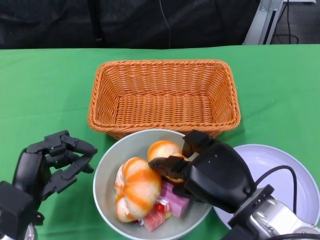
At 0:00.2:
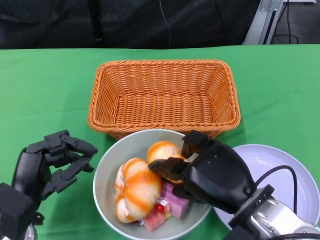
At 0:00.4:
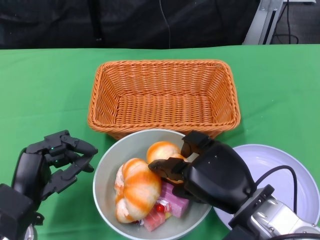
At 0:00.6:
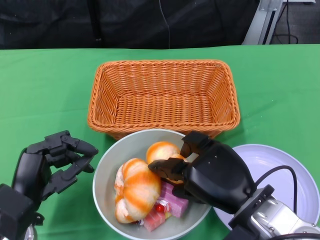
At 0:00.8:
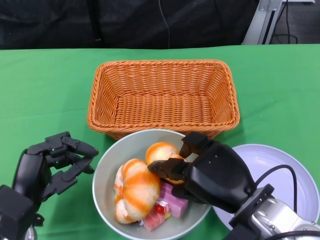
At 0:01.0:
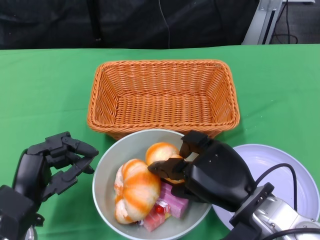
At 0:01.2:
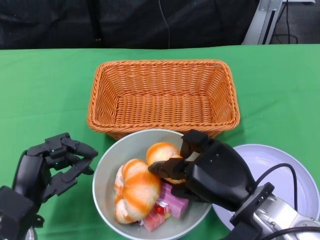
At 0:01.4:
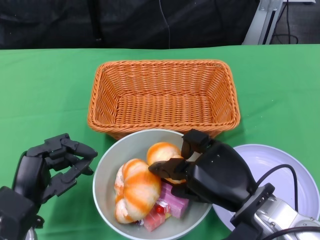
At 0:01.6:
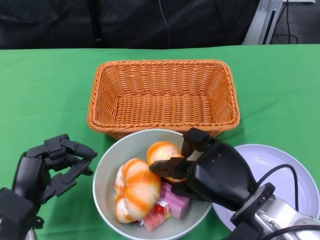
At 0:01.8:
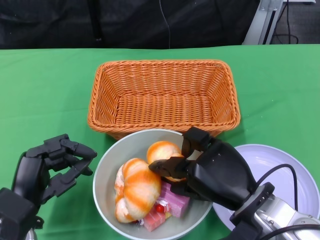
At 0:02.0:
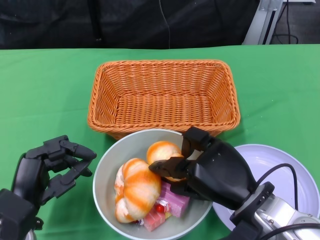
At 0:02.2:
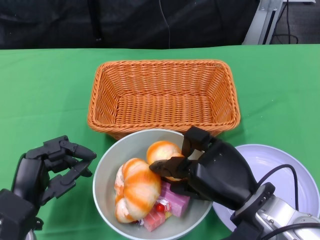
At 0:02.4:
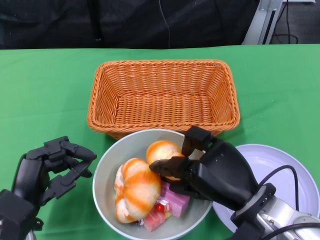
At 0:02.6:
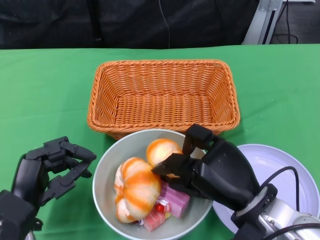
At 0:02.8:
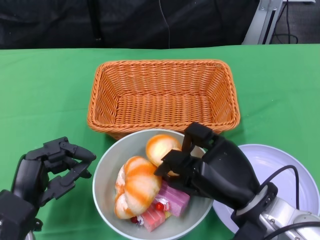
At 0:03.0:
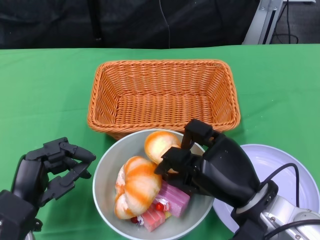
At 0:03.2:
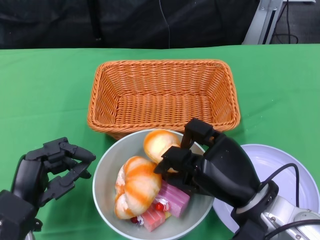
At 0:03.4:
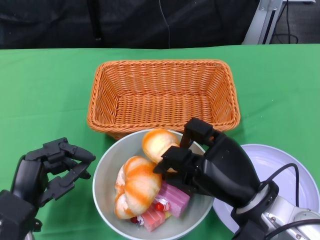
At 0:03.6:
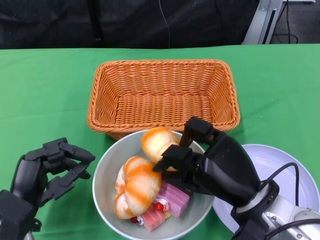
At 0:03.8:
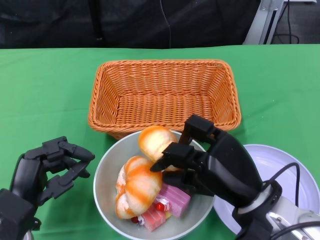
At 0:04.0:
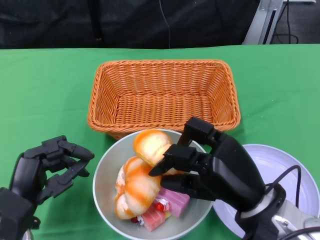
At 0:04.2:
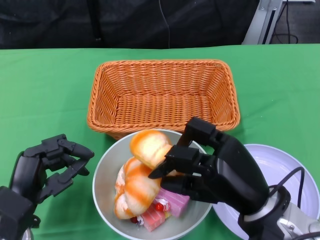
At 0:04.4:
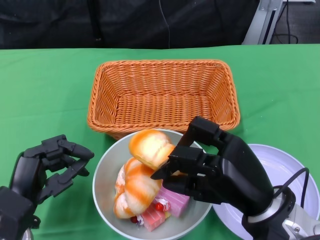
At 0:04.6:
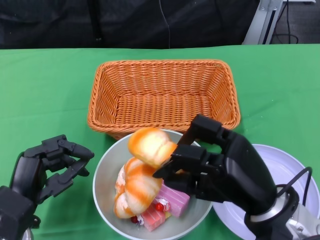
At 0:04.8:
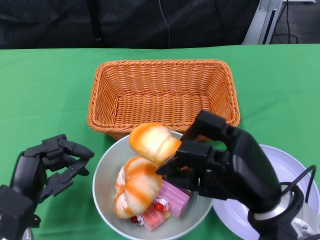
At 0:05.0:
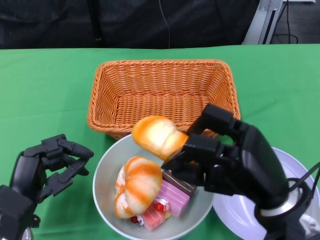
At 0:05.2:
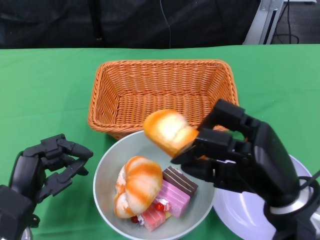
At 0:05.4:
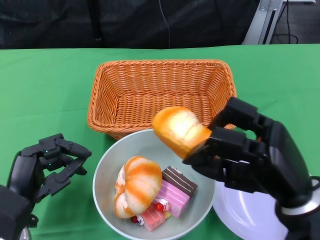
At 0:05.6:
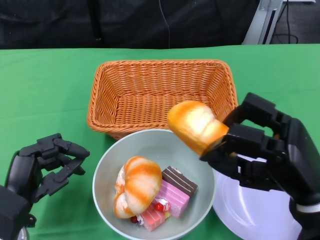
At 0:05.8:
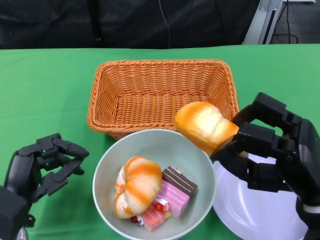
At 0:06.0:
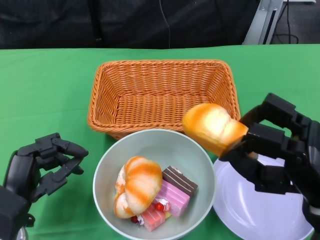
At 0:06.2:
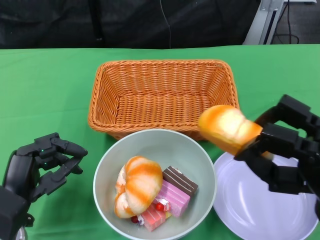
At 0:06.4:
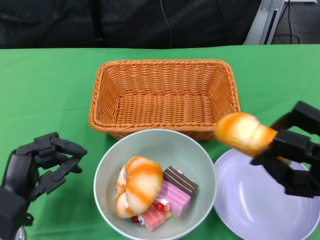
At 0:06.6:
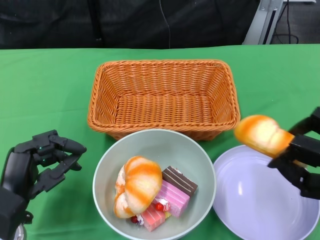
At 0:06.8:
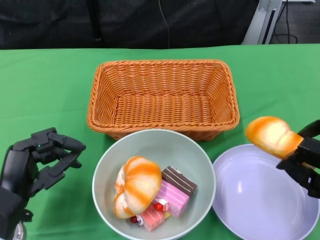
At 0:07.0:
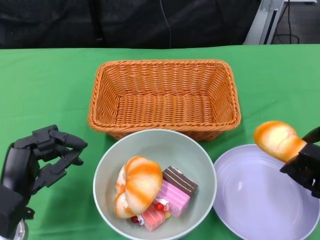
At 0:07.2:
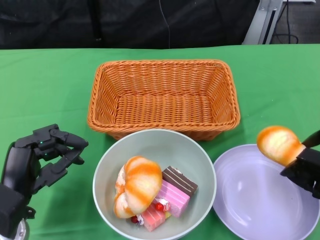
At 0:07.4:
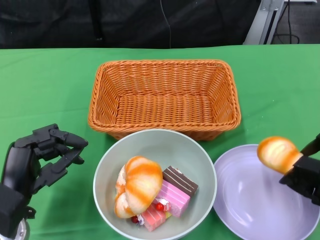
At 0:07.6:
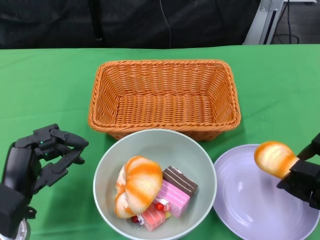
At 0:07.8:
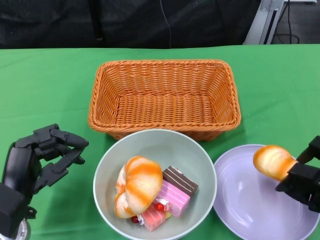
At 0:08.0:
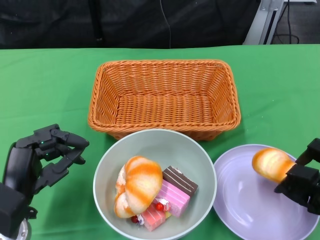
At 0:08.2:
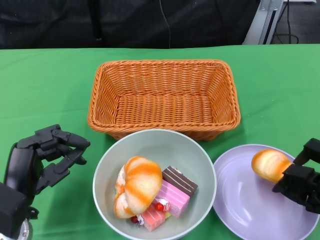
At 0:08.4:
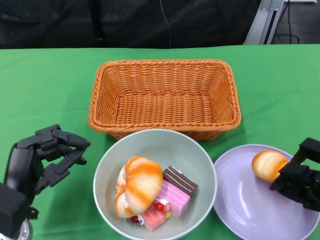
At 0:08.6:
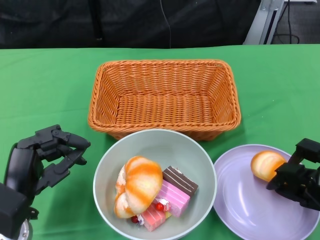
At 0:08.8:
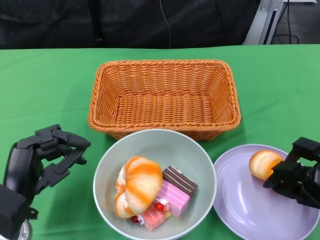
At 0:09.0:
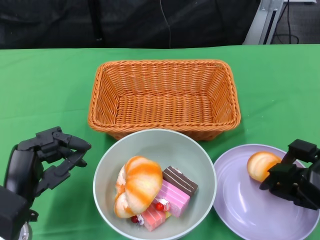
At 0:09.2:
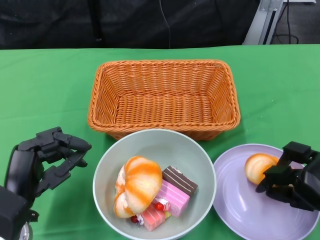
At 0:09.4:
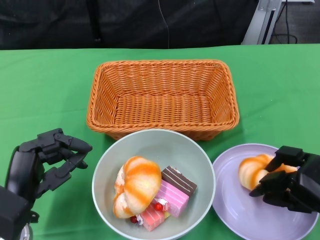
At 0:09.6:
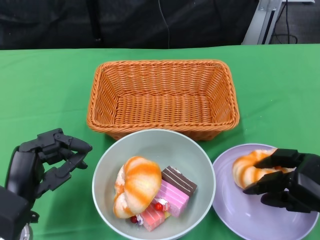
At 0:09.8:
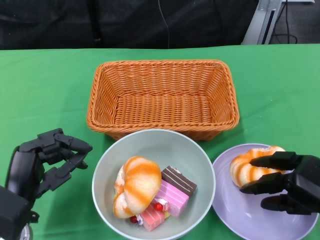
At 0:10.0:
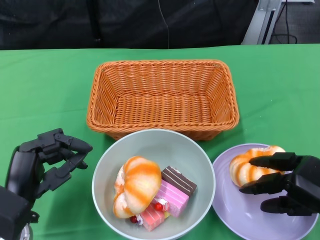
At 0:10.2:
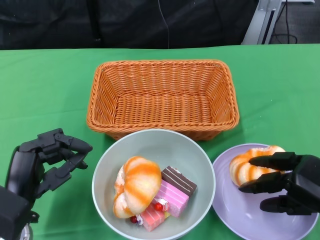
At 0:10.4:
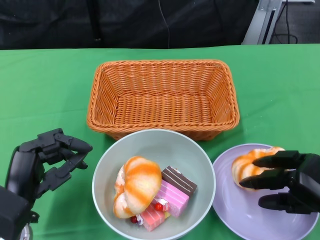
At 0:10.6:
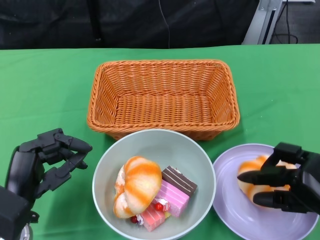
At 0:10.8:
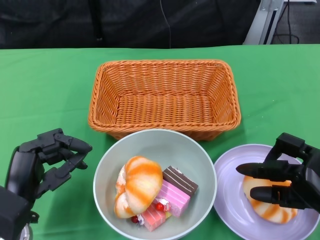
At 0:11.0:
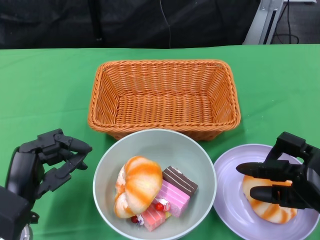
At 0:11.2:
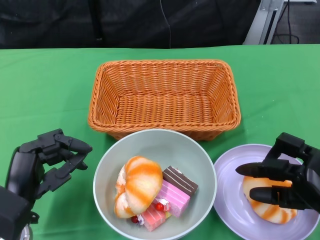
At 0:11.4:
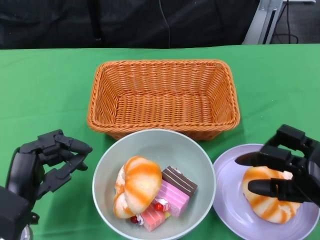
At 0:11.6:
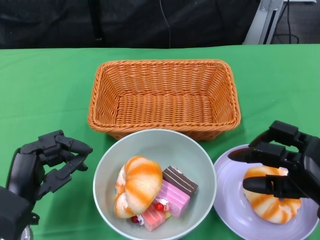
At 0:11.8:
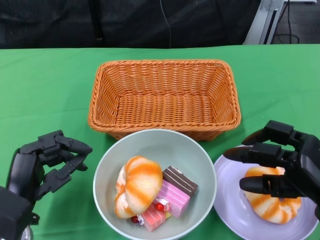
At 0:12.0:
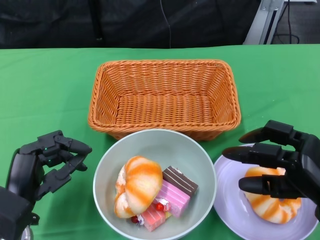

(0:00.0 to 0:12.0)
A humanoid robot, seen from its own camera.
0:00.0 - 0:03.0: The hands move only a little.
0:03.0 - 0:04.4: The hands stay close to where they were, moving slightly.
0:04.4 - 0:06.0: The right hand moves to the right, approximately 5 cm.
0:06.0 - 0:07.6: The right hand travels to the right and downward by approximately 10 cm.
0:07.6 - 0:09.0: The hands move only a little.
0:09.0 - 0:10.4: The hands stay close to where they were, moving slightly.

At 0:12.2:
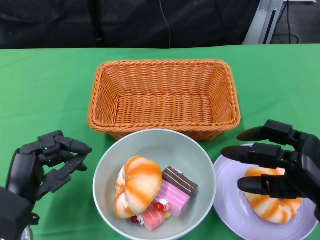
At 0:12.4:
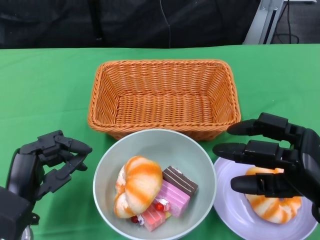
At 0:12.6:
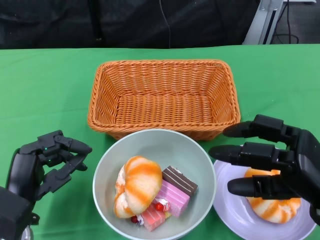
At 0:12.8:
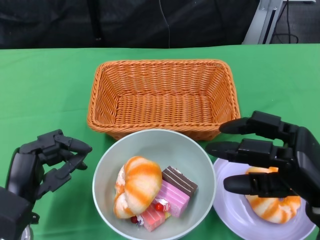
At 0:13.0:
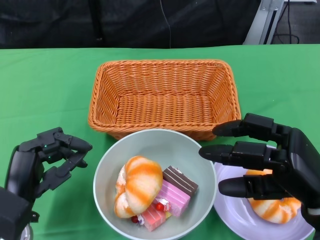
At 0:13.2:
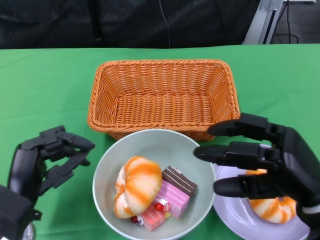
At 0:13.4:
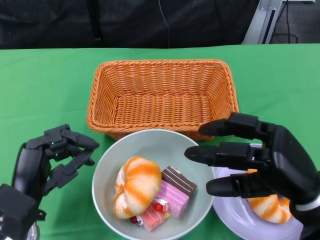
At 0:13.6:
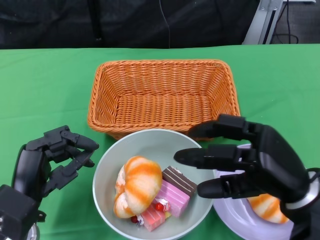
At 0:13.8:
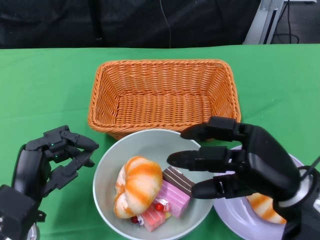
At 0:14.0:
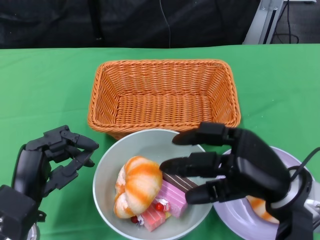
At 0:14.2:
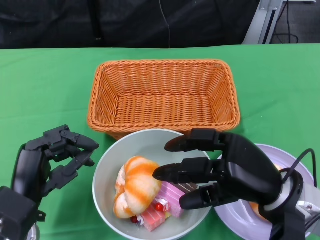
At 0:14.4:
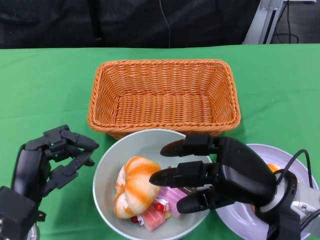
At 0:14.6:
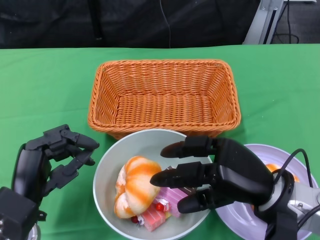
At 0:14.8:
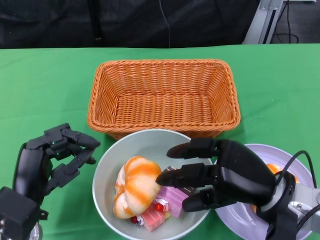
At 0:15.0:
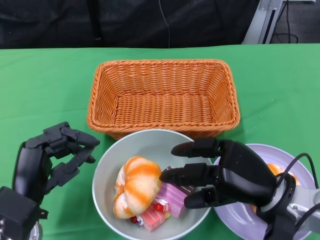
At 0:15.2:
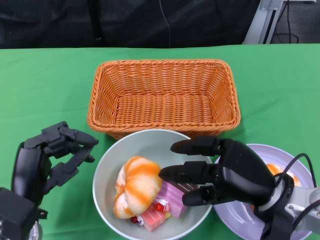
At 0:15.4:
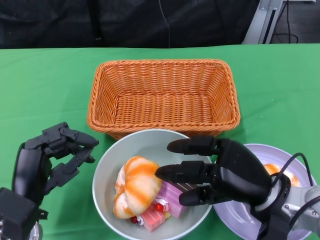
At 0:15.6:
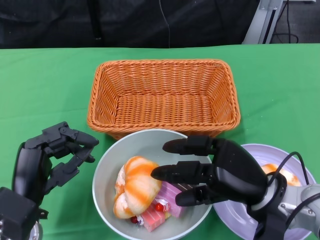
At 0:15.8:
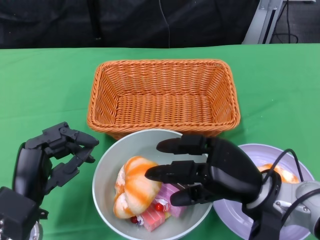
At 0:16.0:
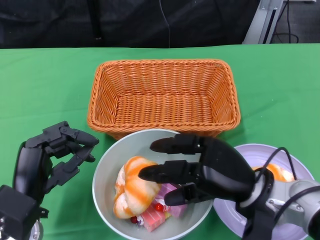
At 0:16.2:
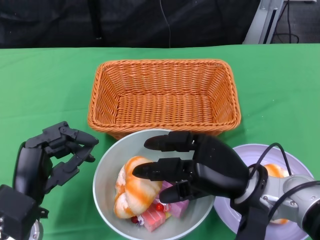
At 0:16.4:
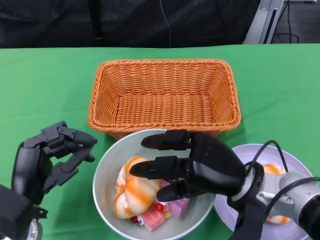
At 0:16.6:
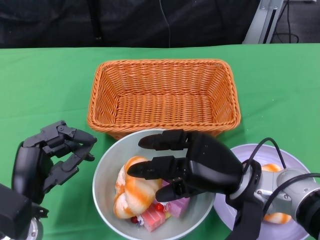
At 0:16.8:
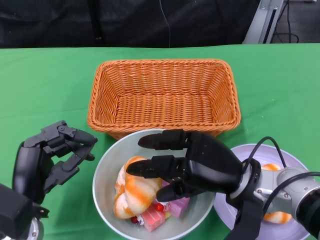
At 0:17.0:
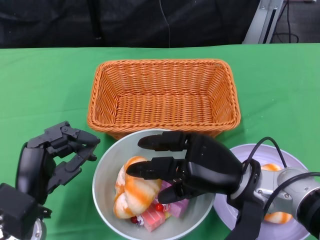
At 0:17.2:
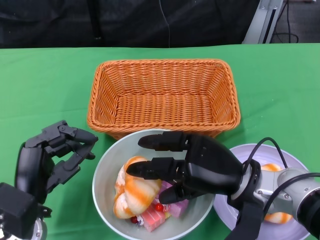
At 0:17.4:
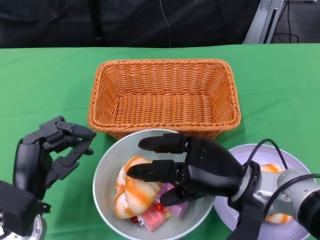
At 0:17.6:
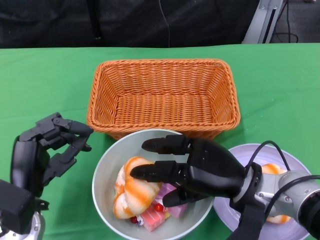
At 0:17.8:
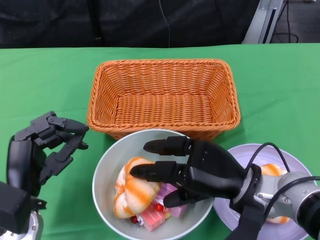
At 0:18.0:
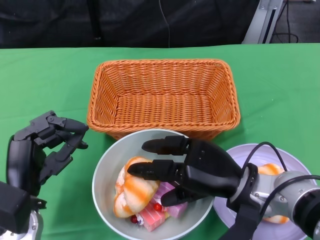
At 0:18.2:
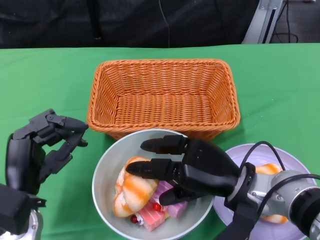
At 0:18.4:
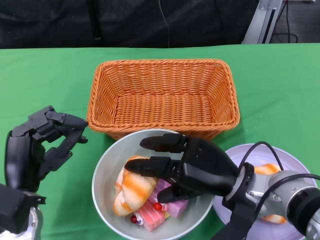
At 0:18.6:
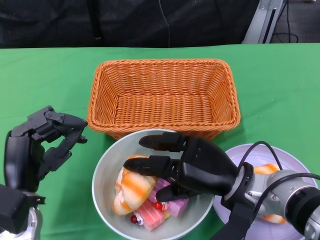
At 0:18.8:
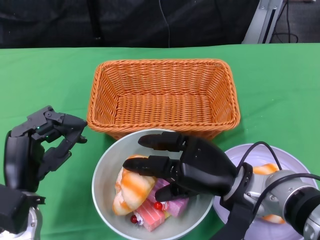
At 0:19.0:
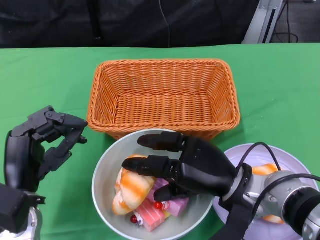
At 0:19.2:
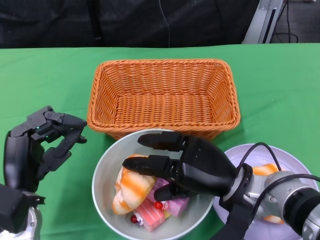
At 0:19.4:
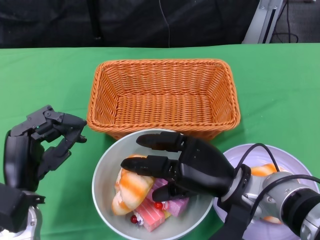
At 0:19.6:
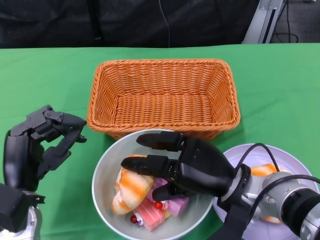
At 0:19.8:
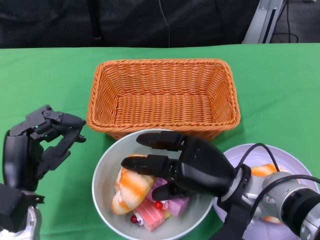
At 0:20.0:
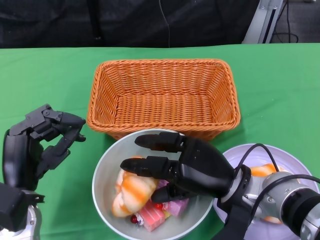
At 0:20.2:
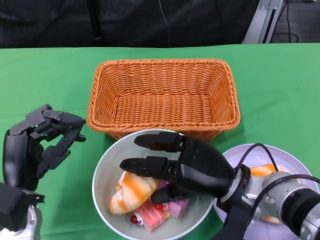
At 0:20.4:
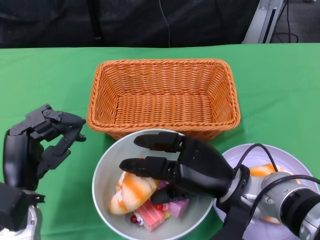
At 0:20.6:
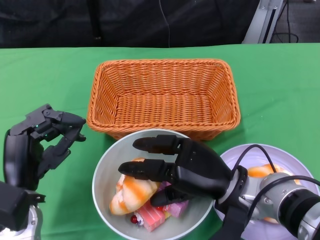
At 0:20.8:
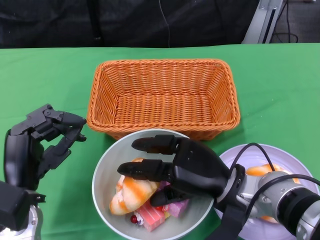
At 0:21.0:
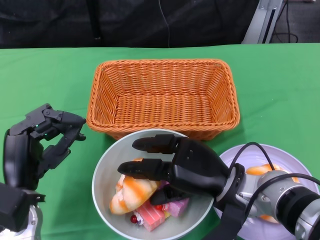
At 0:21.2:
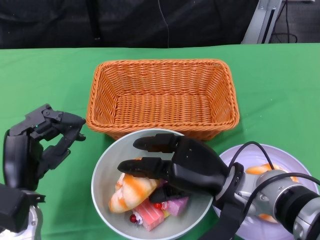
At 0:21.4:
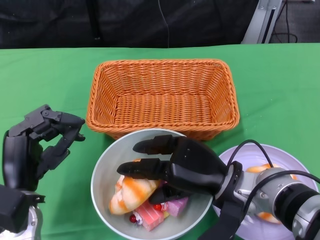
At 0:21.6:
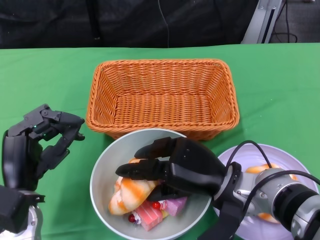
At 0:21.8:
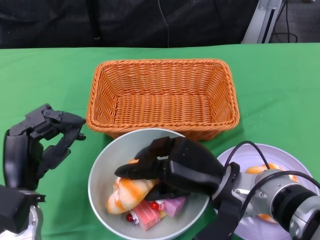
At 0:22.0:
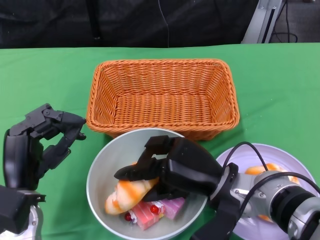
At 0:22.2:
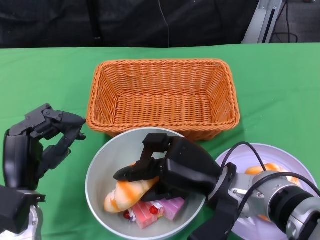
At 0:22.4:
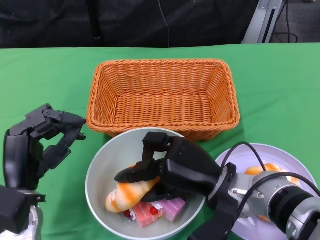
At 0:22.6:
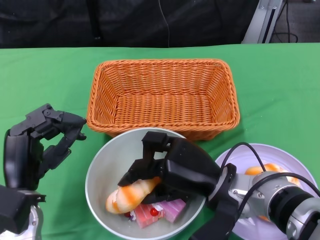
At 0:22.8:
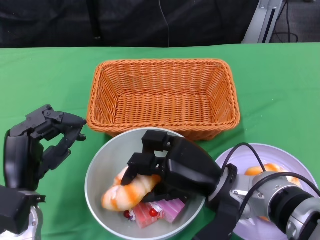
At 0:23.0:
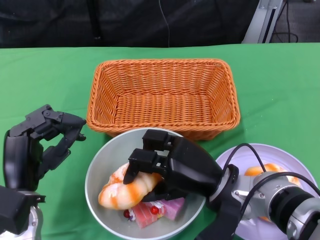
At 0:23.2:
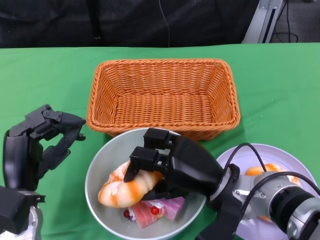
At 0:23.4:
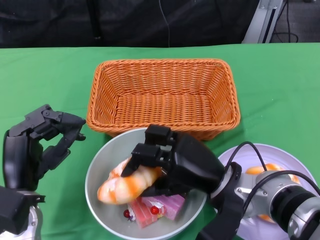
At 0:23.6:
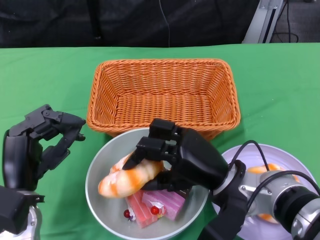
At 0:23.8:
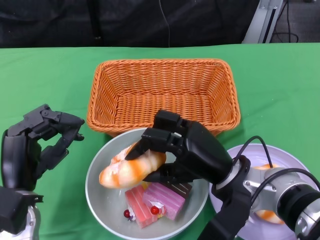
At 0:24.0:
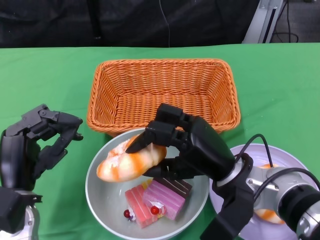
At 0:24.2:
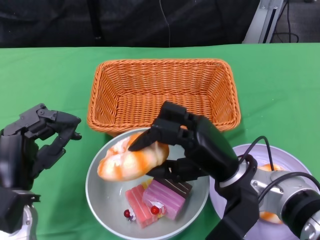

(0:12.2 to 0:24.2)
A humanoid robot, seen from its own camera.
0:12.2 - 0:13.8: The right hand shifts some 5 cm to the left.
0:13.8 - 0:15.2: The right hand shifts by some 5 cm.
0:15.2 - 0:19.8: The hands make only small movements.
0:19.8 - 0:21.2: Neither hand changes place.
0:21.2 - 0:22.6: The hands make only small movements.
